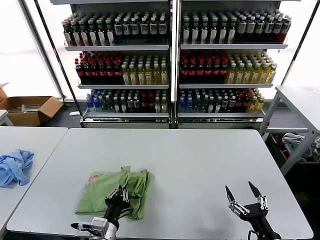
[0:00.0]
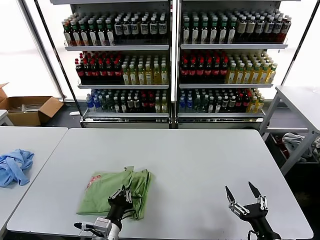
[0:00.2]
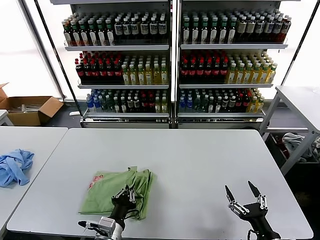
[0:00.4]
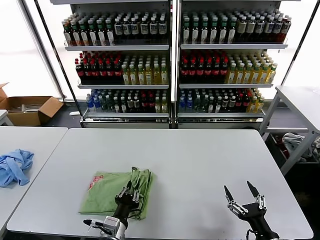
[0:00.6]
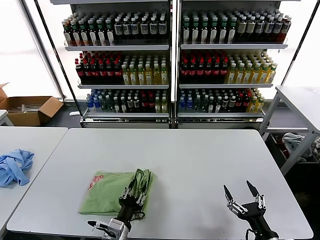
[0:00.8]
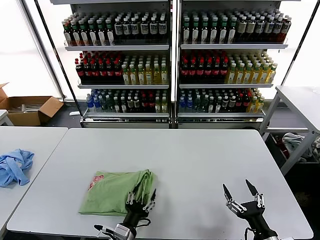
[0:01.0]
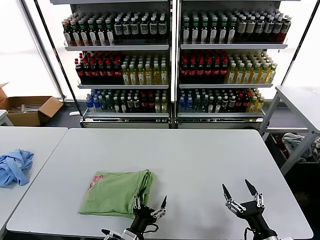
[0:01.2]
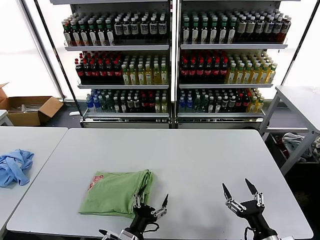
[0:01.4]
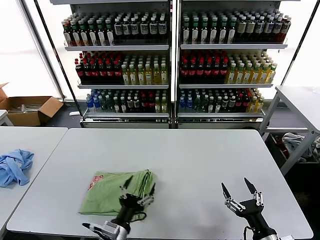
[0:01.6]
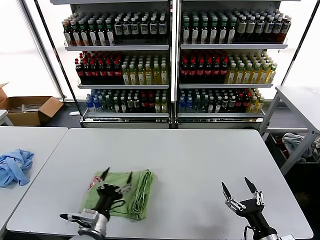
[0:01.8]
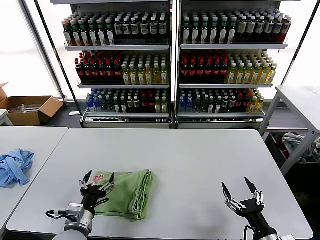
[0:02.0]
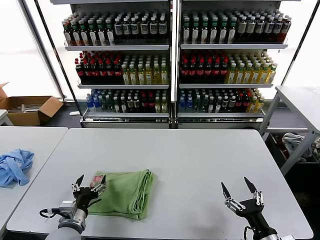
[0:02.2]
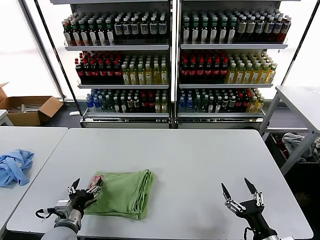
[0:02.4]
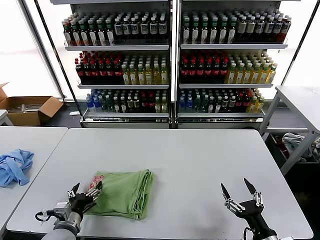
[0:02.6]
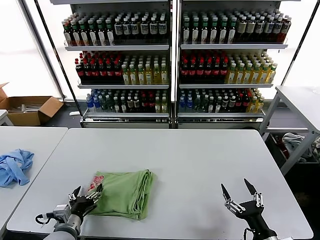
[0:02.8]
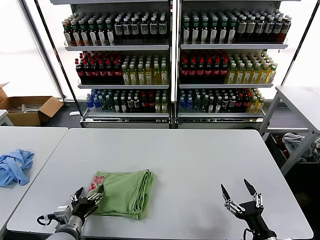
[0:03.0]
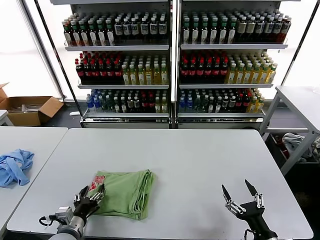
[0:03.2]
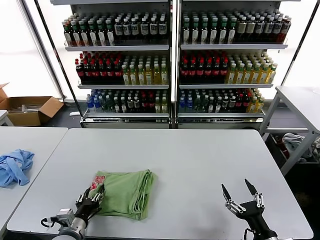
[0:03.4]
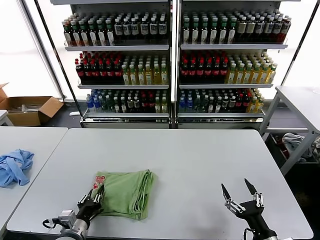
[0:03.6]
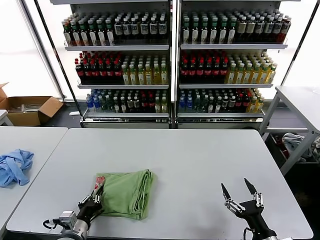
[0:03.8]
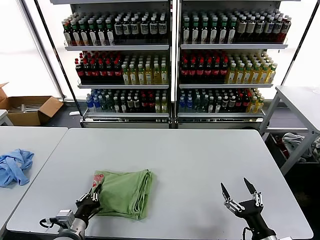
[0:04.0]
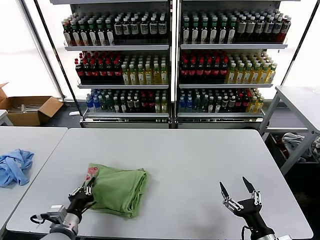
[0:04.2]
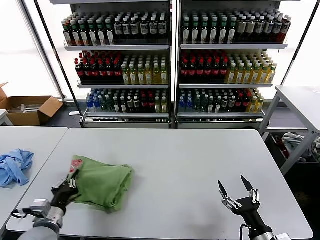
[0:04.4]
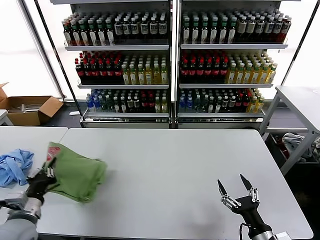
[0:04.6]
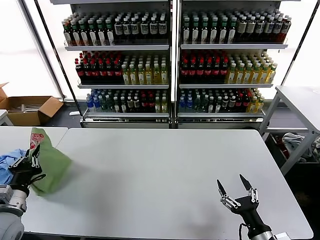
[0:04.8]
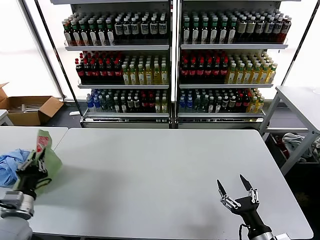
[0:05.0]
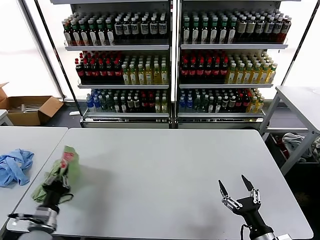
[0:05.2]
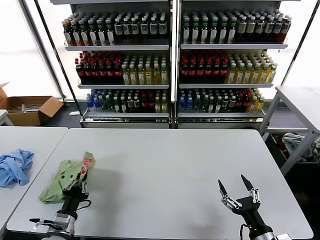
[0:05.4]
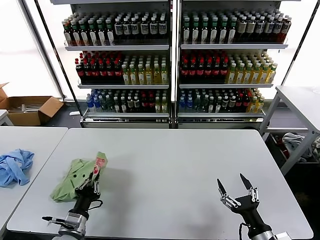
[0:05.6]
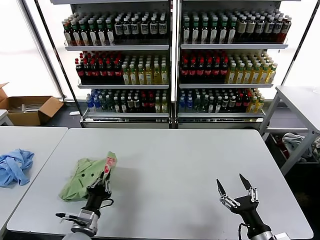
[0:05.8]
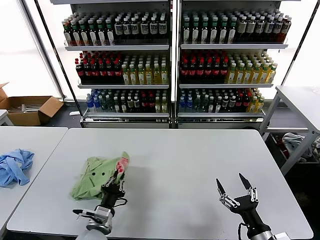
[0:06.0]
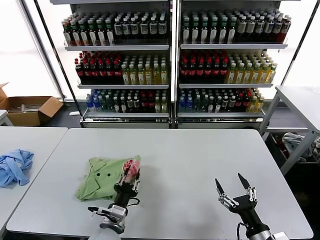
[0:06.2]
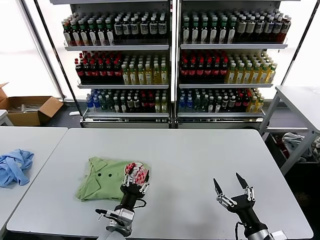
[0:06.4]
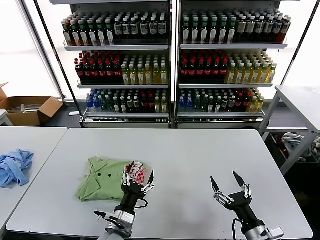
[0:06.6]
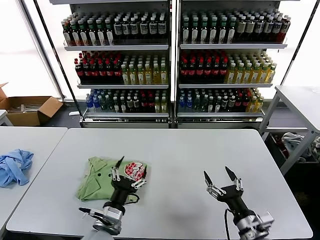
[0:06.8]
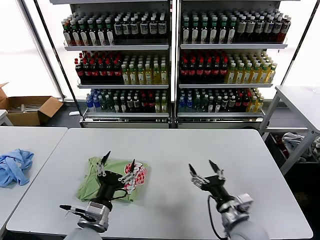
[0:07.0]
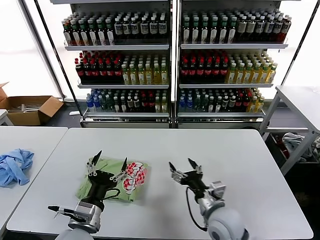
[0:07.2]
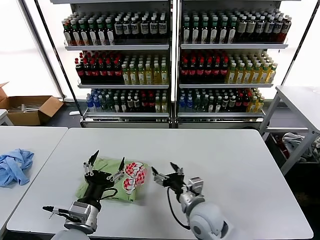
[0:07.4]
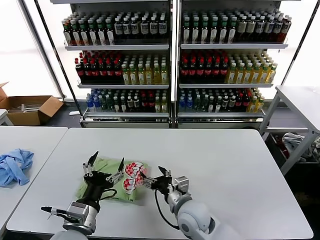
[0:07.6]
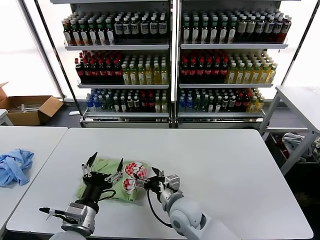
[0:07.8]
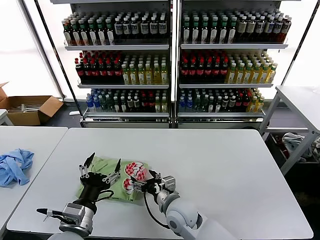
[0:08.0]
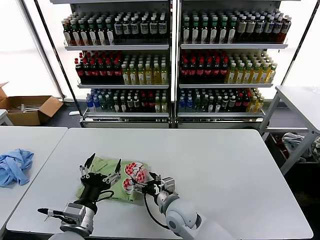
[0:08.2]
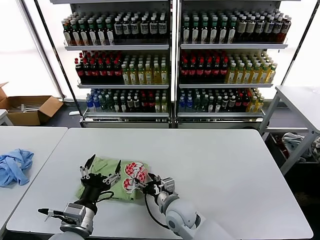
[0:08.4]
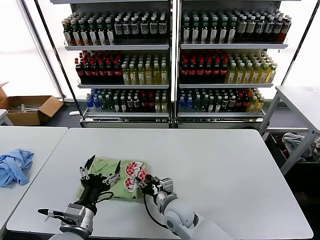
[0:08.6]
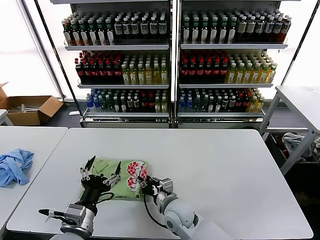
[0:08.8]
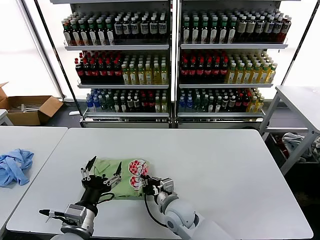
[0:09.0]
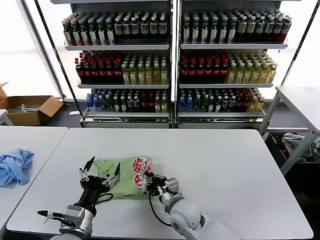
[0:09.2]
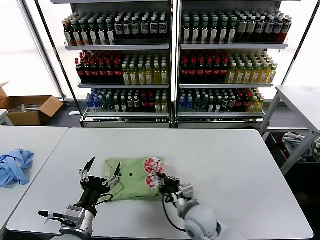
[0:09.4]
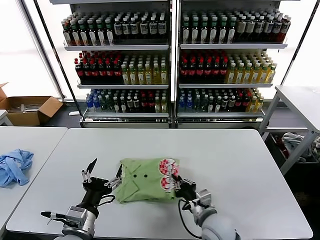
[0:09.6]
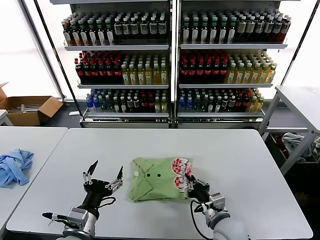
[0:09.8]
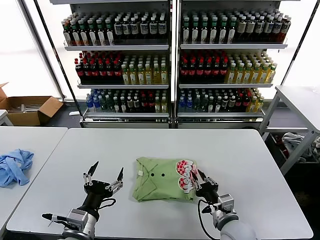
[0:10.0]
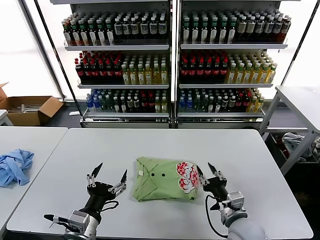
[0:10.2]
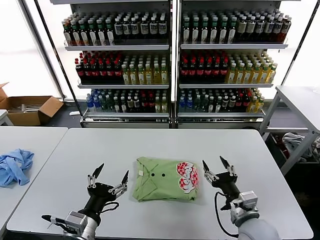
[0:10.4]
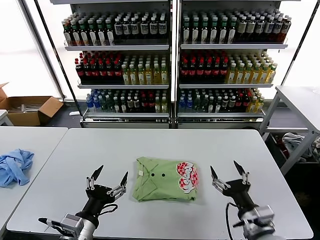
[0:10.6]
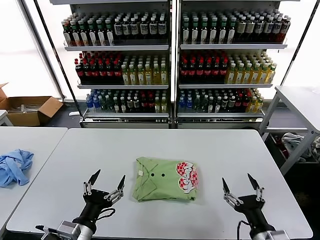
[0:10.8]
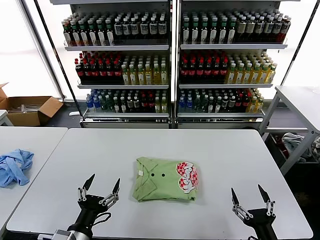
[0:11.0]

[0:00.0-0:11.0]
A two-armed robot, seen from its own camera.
Task of the whole recording: fold and organize the clothes.
Step, 0:01.2 to 0:06.2: Flip the folded clothes over with left gripper.
Step, 0:06.4 to 0:10.0: Drag the clothes to the center of the table.
0:00.0 to 0:01.6: The left gripper opens.
0:01.6 to 0:03.2: The left gripper travels to the left by about 15 cm.
0:03.2 to 0:04.8: The left gripper travels upward and to the left by some 15 cm, and closes.
0:04.8 to 0:06.2: The left gripper is displaced to the right and downward by some 25 cm.
0:06.2 to 0:07.8: The left gripper shifts approximately 10 cm upward, and opens its fingers, while the right gripper travels to the left and forward by roughly 25 cm.
0:07.8 to 0:09.4: The right gripper closes.
0:09.4 to 0:11.0: The right gripper travels to the right and backward by roughly 25 cm, and opens up.

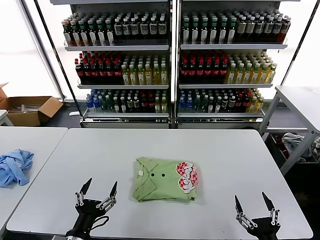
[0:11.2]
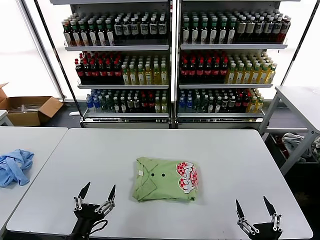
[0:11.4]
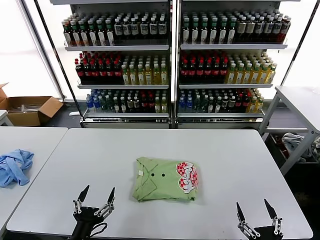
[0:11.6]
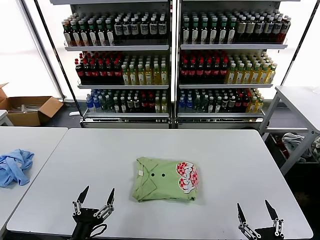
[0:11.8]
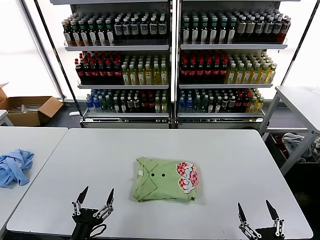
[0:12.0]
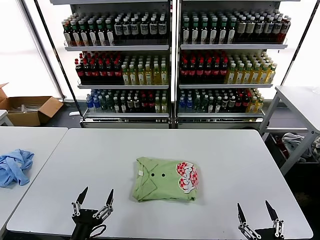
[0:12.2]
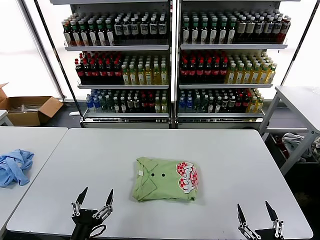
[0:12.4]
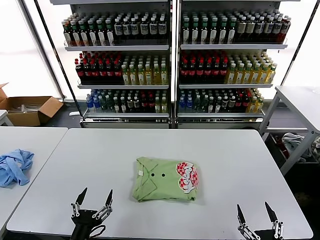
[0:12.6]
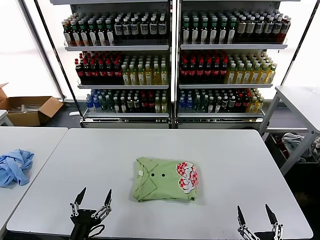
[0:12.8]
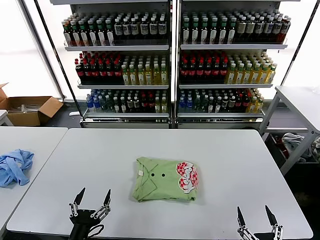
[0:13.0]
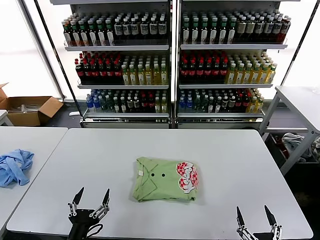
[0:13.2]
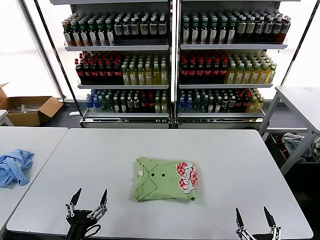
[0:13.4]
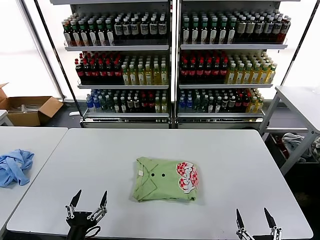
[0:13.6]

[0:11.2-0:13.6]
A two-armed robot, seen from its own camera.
Task of the whole recording: fold and organize the clothes.
0:11.2 to 0:13.6: The grippers move only a little.
